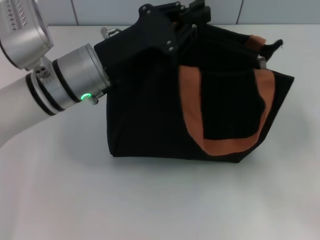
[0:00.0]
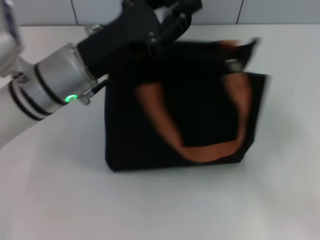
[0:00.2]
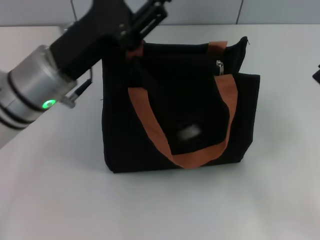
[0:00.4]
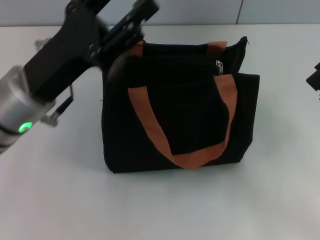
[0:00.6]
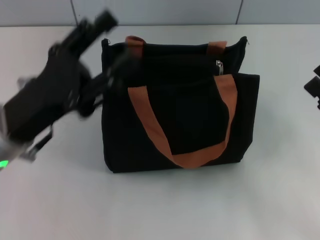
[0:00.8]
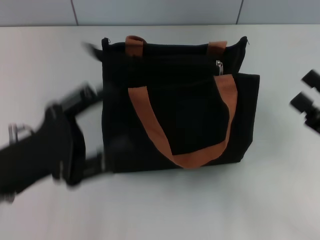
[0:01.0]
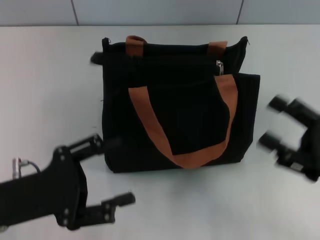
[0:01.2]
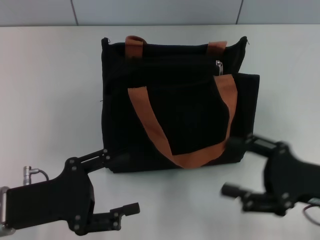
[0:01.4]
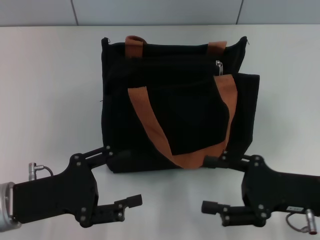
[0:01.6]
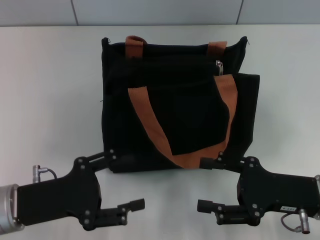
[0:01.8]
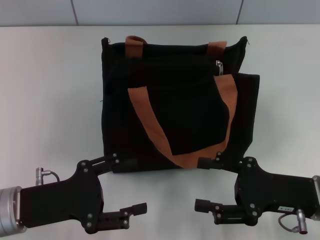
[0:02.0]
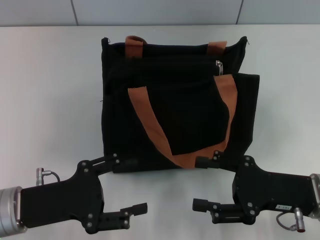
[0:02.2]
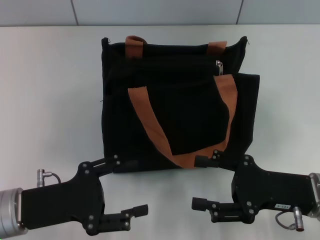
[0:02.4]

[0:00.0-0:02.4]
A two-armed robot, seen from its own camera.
0:00.0 to 0:01.2: The right gripper is displaced to the left by roughly 5 cm, and opens; the left gripper is displaced backward and to the left by roughly 20 cm, and opens up.
0:01.2 to 0:02.4: The right gripper goes some 5 cm to the left.

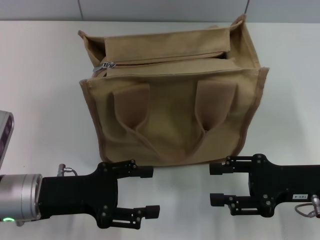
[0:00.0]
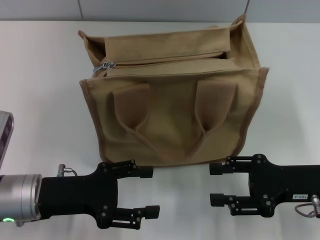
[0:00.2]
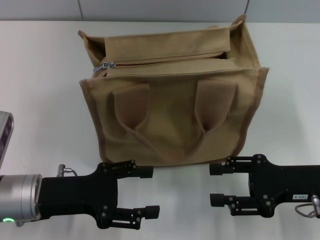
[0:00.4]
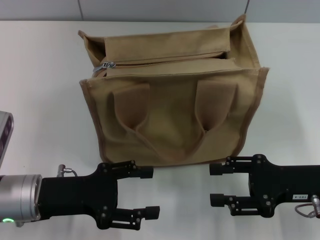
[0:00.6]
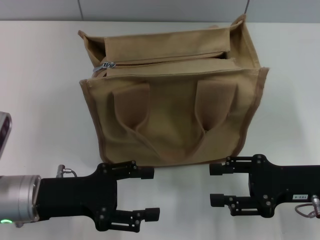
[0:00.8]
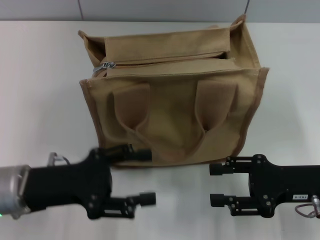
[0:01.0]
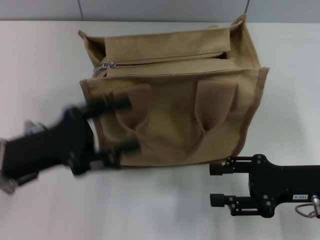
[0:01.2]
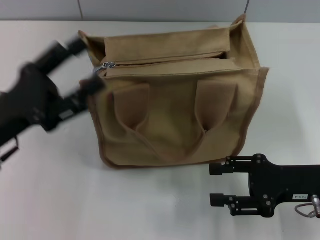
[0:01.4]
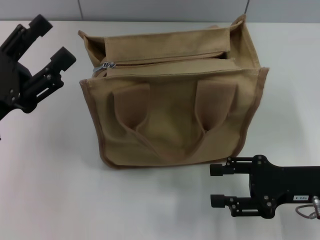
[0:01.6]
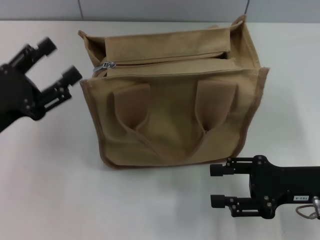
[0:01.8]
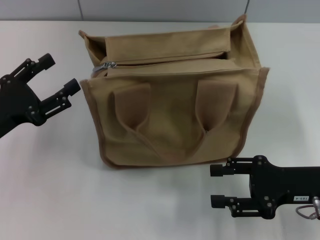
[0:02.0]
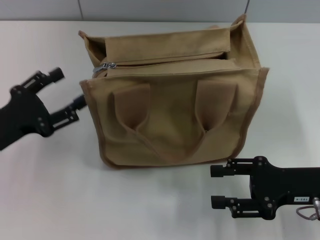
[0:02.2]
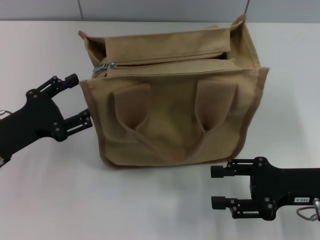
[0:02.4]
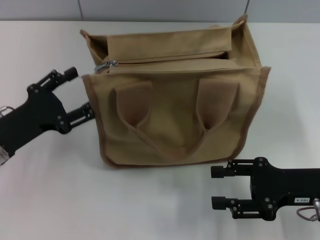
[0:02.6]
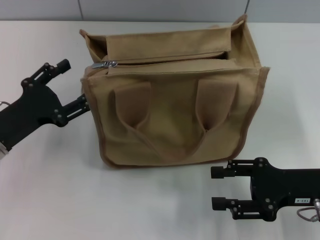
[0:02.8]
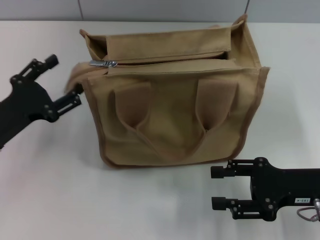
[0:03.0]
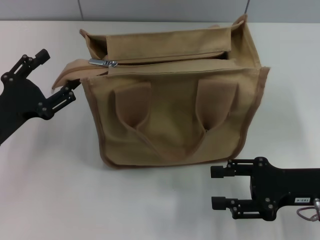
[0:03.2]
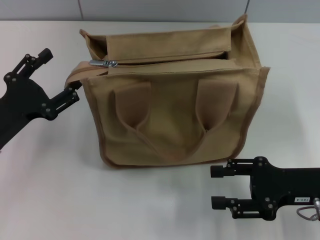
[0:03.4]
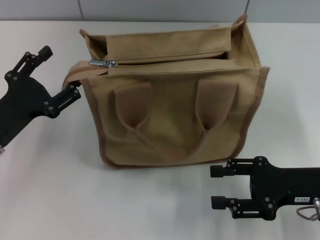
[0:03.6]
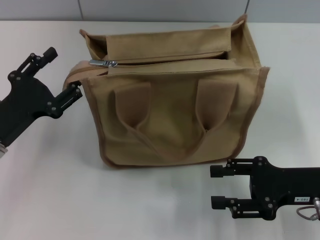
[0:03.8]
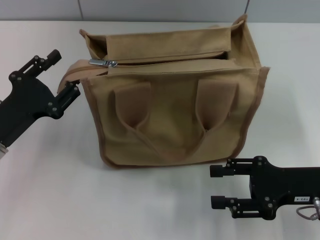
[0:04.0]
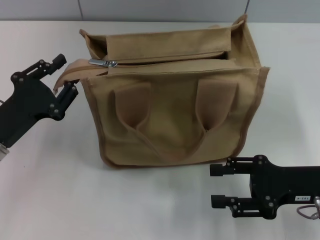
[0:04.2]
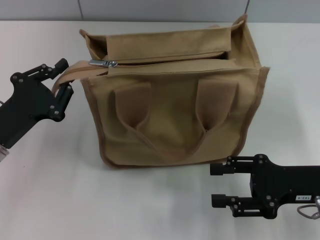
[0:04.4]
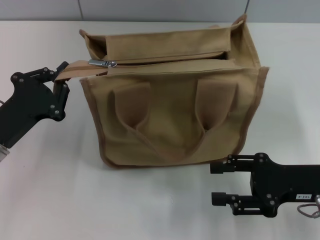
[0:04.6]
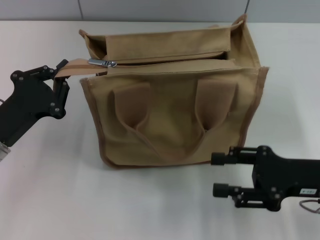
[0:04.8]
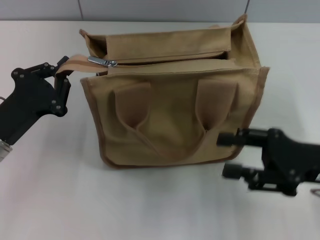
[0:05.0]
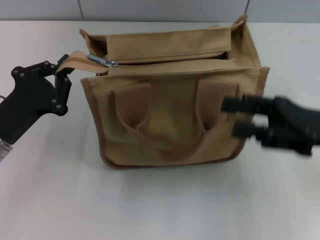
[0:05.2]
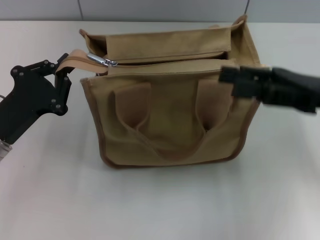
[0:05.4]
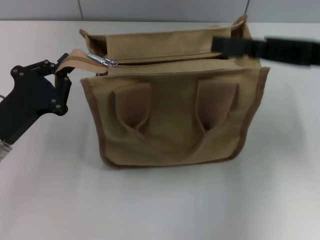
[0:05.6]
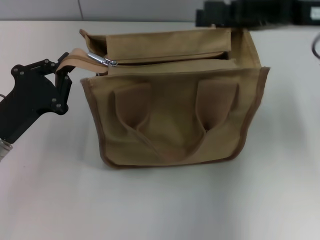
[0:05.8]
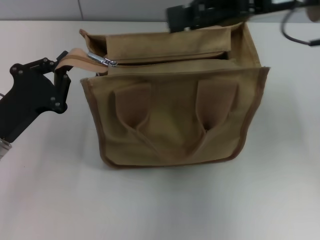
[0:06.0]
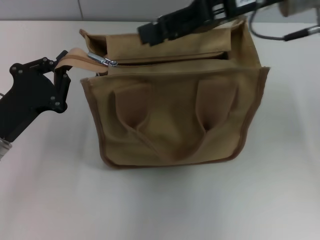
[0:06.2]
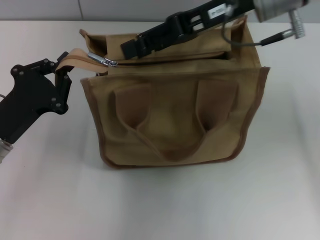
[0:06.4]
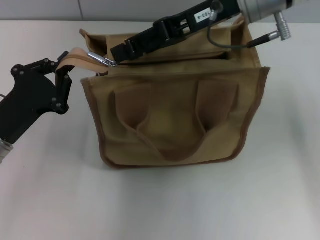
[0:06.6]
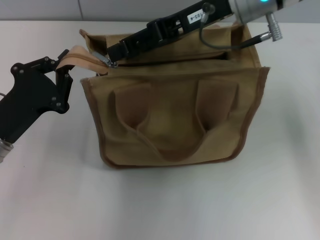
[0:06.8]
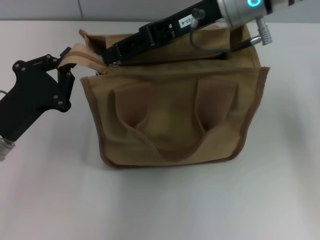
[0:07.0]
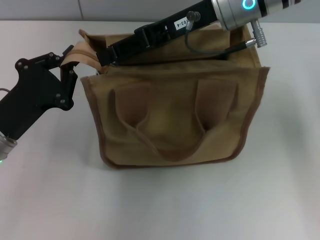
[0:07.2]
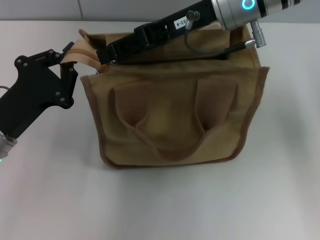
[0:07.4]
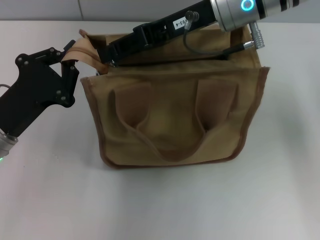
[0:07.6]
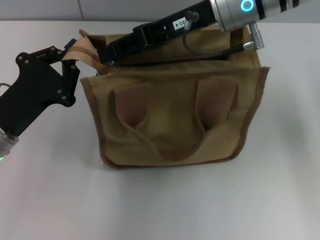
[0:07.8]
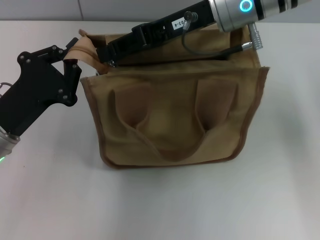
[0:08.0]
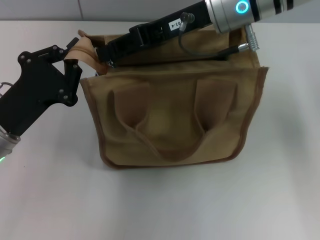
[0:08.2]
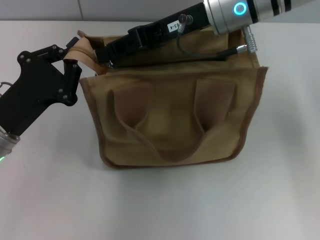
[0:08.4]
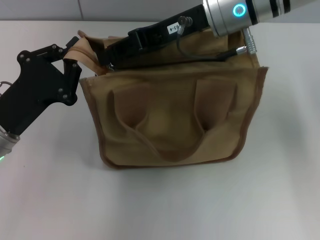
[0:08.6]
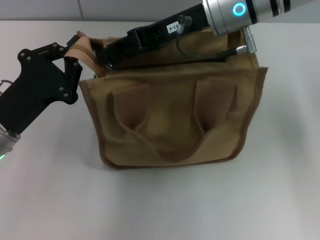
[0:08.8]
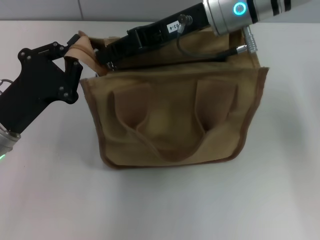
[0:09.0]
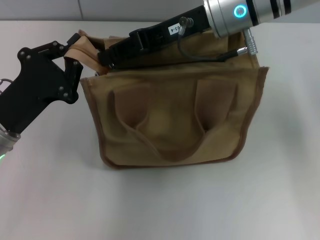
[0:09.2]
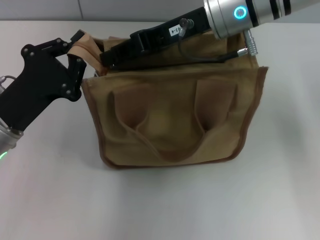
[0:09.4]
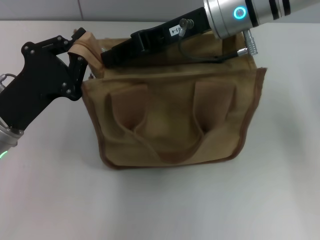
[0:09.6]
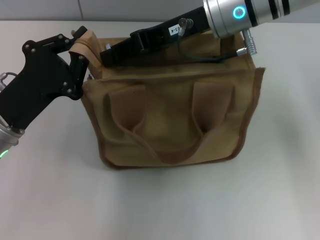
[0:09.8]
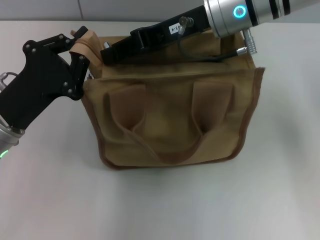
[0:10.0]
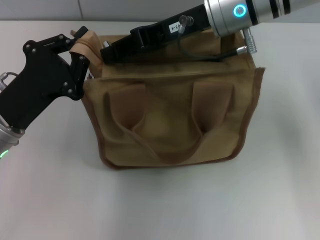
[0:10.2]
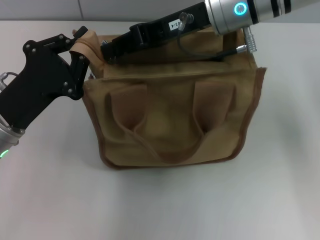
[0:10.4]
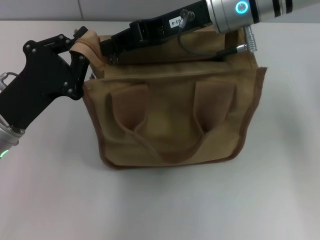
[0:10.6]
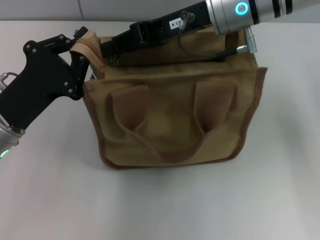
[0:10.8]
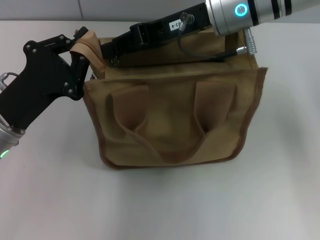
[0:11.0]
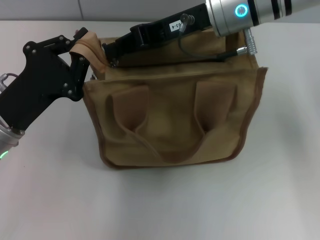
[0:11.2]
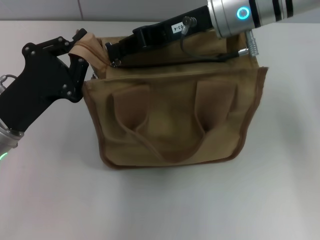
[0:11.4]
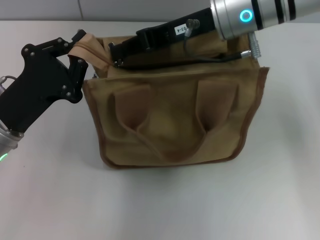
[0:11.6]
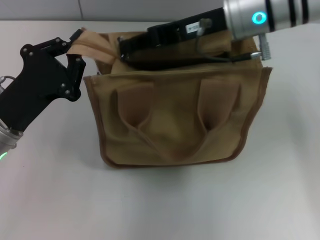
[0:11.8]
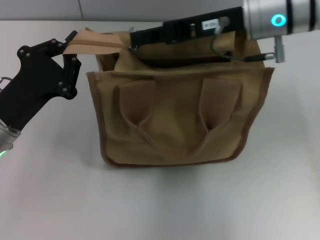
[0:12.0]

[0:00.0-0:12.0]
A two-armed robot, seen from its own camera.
0:00.0 to 0:01.6: The left gripper moves upward and to the left, approximately 5 cm.
0:01.6 to 0:03.0: The left gripper moves approximately 5 cm.
0:03.0 to 0:04.4: The left gripper closes up.
0:04.4 to 0:06.0: The right gripper travels upward and forward by roughly 25 cm, while the left gripper closes.
0:06.0 to 0:07.6: The right gripper shifts about 10 cm to the left.
0:07.6 to 0:09.0: The right gripper closes its fingers.
0:09.0 to 0:10.4: The grippers move only a little.
0:10.4 to 0:12.0: The right gripper closes up.

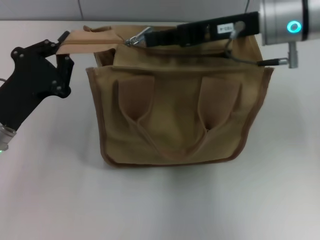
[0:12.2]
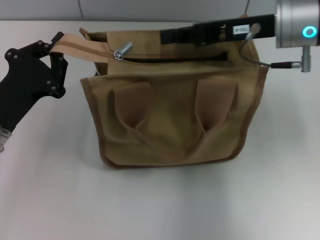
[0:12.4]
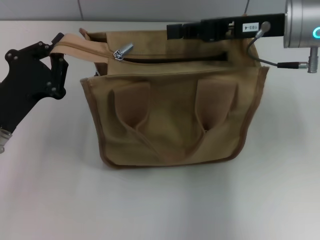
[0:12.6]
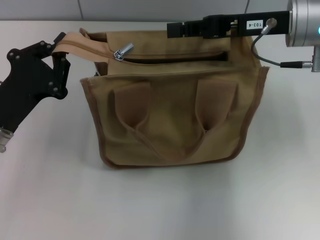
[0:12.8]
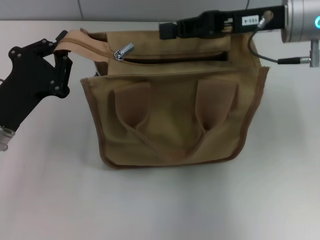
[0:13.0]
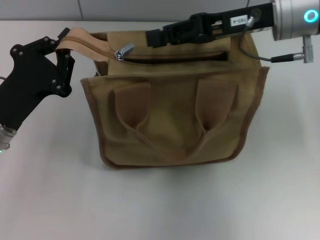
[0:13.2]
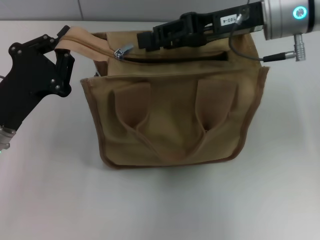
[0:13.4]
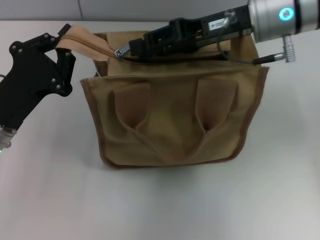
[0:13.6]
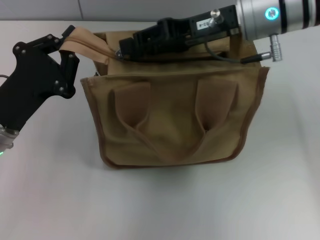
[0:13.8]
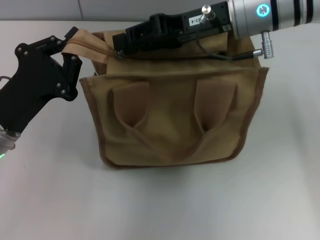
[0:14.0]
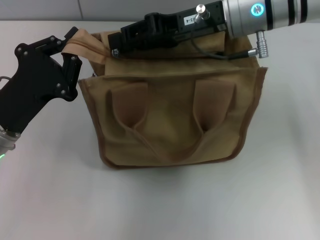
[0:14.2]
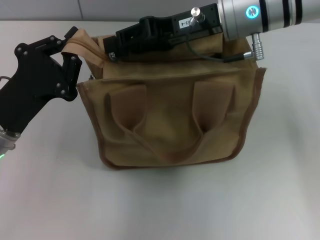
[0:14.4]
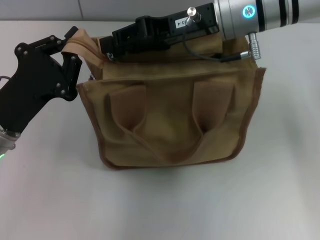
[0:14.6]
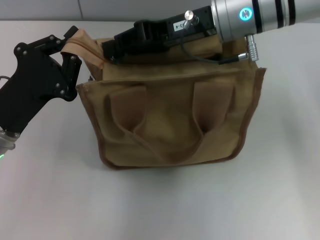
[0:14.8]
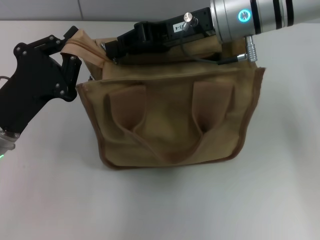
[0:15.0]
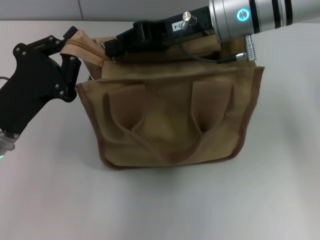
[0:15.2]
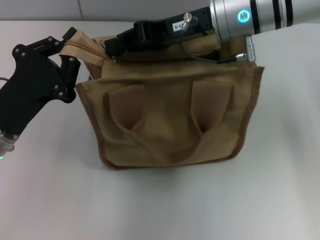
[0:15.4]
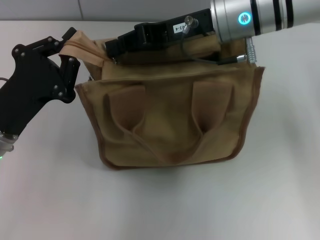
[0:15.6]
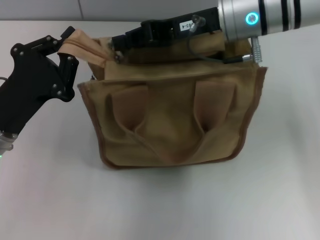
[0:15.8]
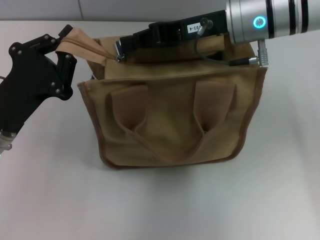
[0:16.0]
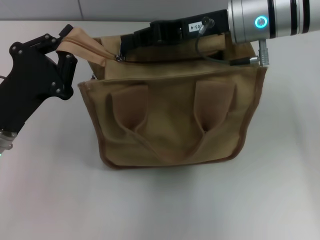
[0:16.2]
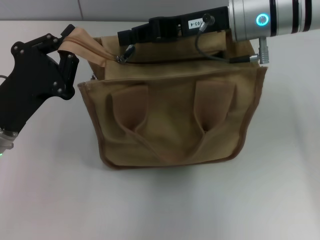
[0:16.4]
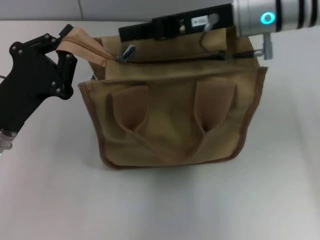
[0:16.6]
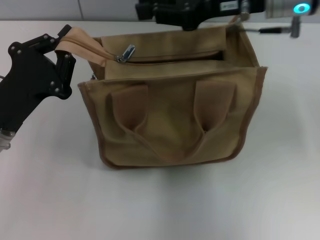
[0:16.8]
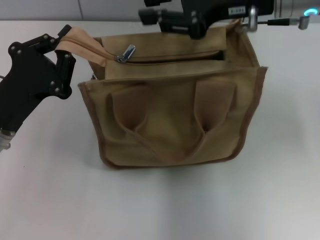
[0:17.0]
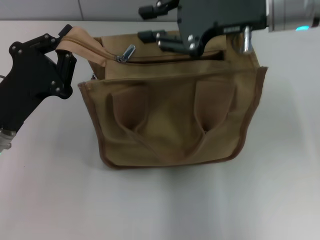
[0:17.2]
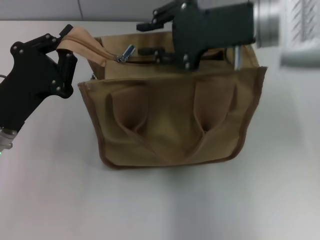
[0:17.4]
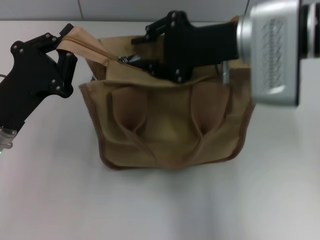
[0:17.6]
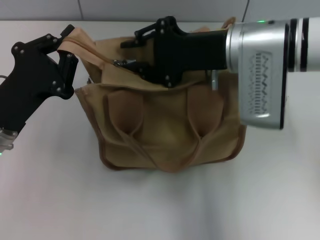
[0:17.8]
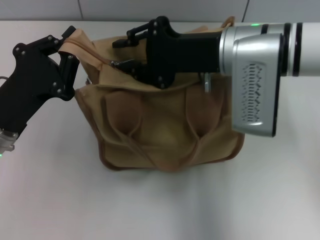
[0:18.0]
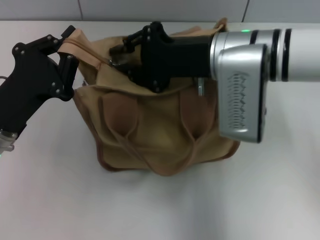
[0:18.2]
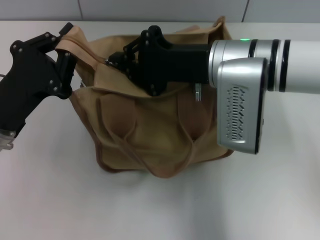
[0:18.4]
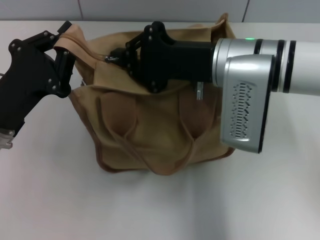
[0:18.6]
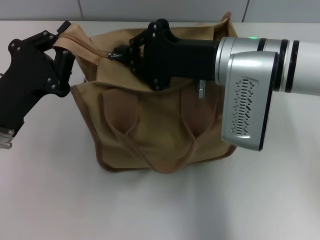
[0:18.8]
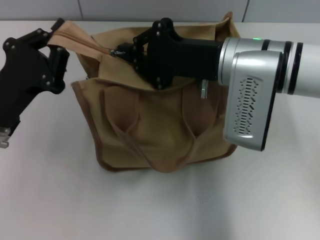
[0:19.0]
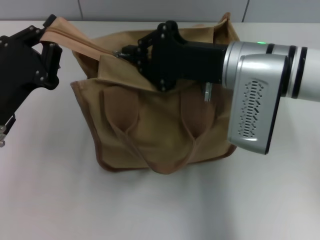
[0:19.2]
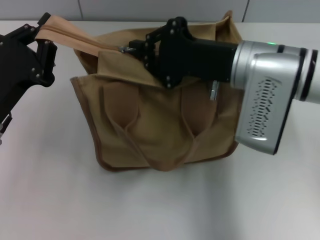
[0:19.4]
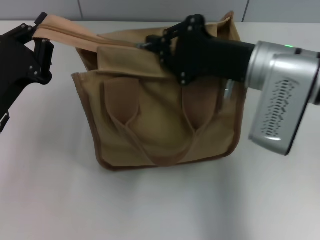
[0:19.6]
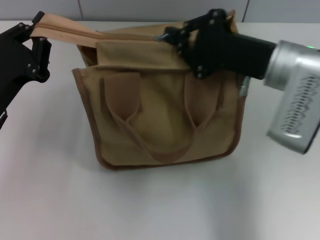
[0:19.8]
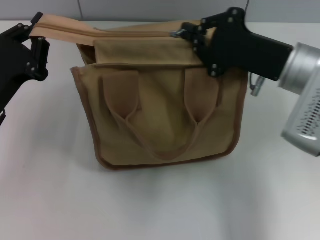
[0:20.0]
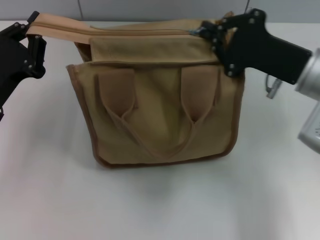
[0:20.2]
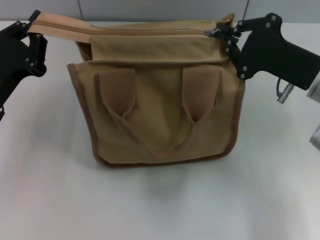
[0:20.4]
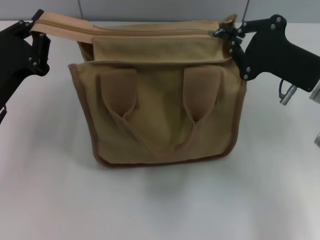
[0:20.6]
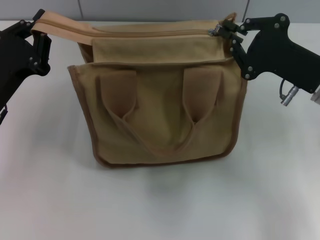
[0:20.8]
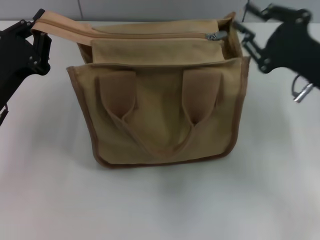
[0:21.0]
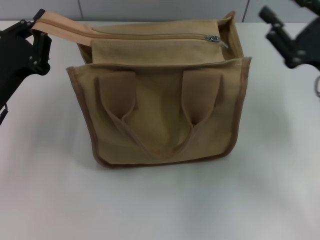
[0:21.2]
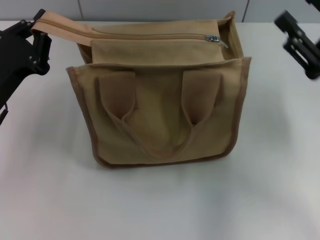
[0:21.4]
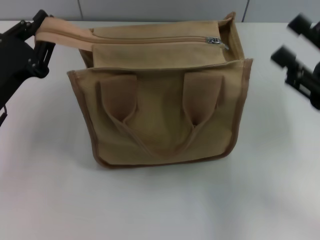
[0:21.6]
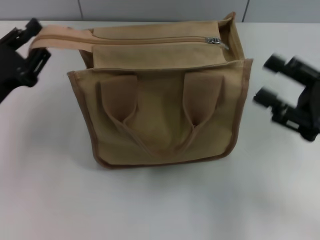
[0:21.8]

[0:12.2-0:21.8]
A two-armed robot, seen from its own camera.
Step, 0:12.2 to 0:20.8: Pull up the zipper with your right hand.
0:12.2 to 0:13.8: The right gripper opens.
0:13.8 to 0:15.4: The right gripper closes.
0:15.4 to 0:17.0: The right gripper shifts roughly 5 cm to the right.
0:17.0 to 0:18.6: The right gripper shifts approximately 10 cm downward and to the left.
0:18.6 to 0:20.2: The right gripper goes some 10 cm to the right.
0:20.2 to 0:21.8: The right gripper moves to the right and backward, some 10 cm, and opens up.
